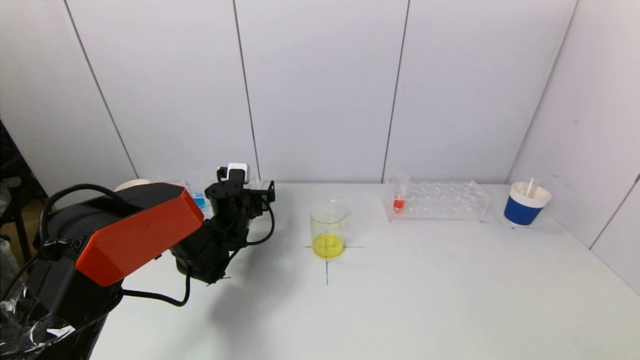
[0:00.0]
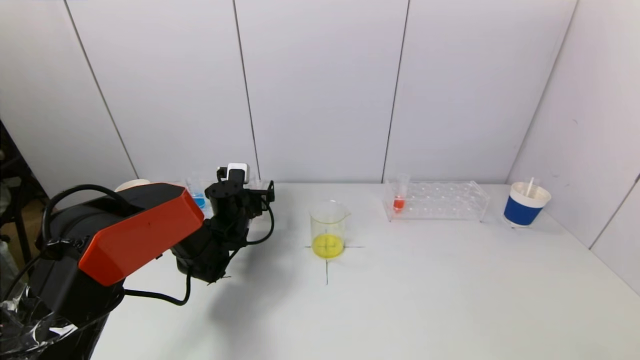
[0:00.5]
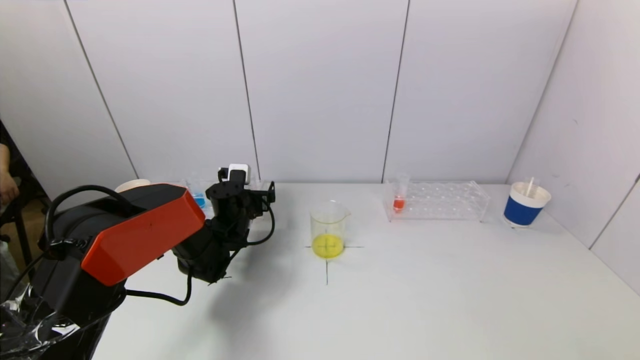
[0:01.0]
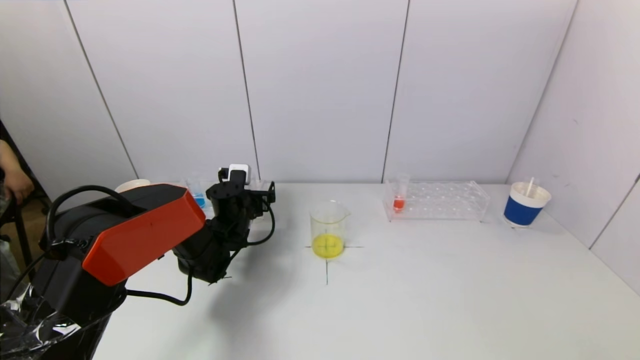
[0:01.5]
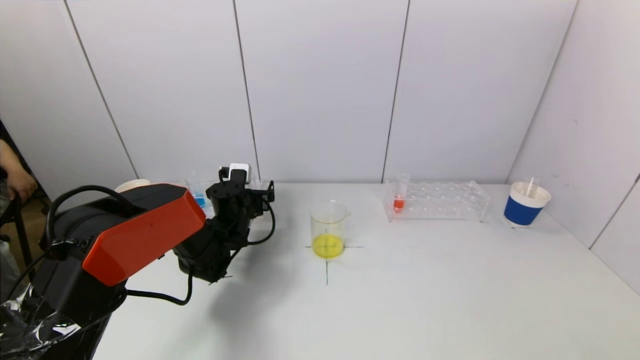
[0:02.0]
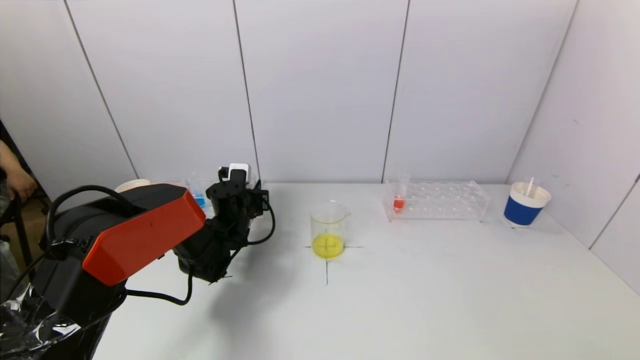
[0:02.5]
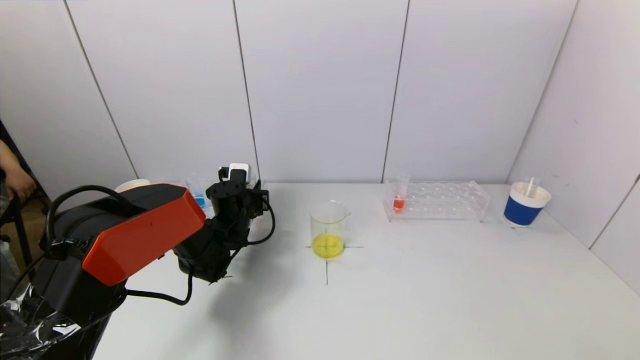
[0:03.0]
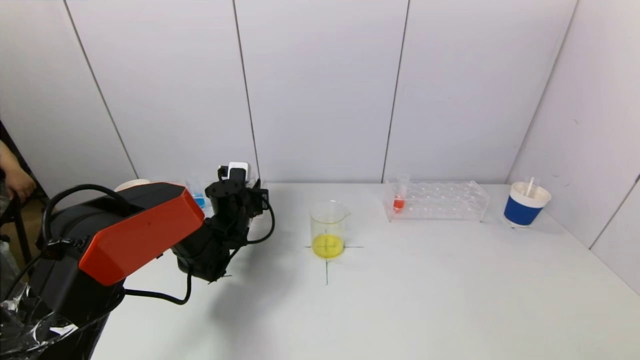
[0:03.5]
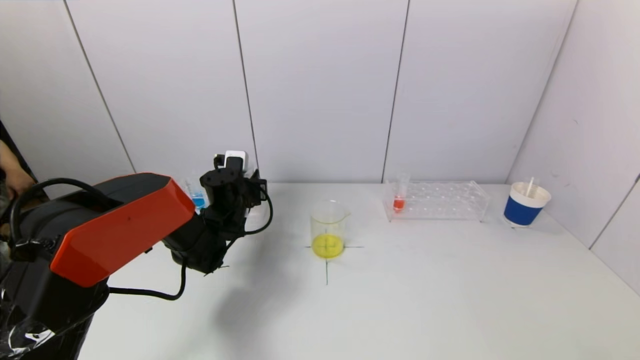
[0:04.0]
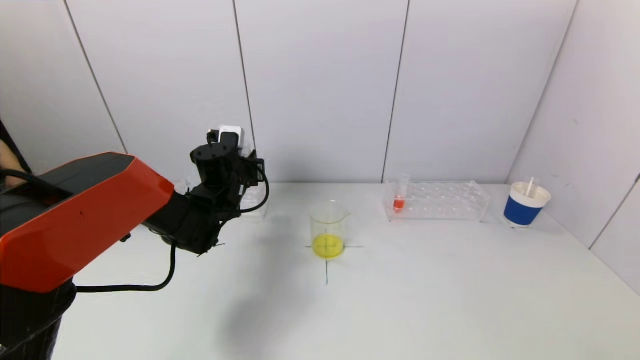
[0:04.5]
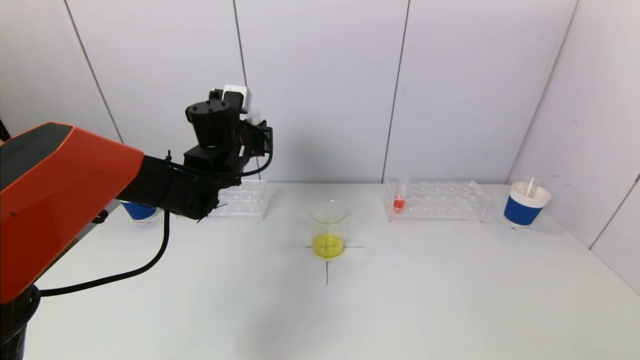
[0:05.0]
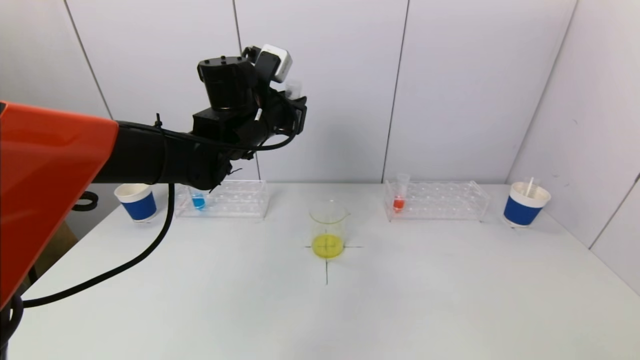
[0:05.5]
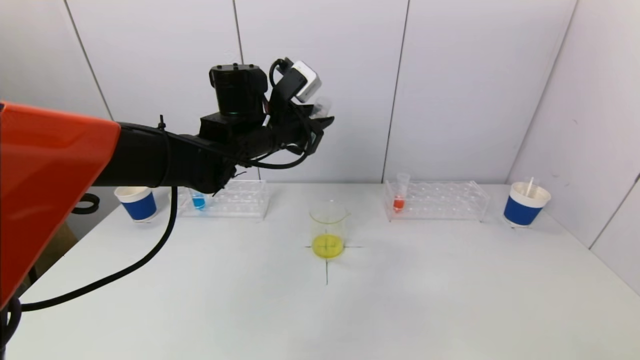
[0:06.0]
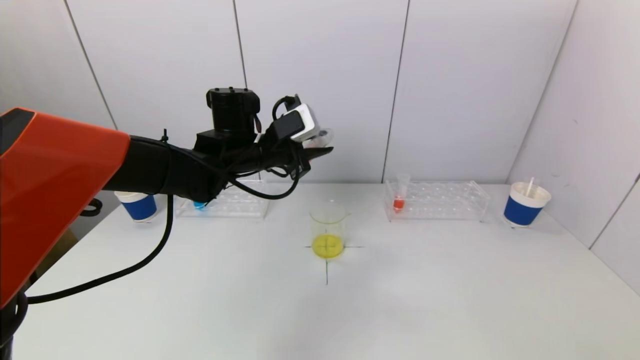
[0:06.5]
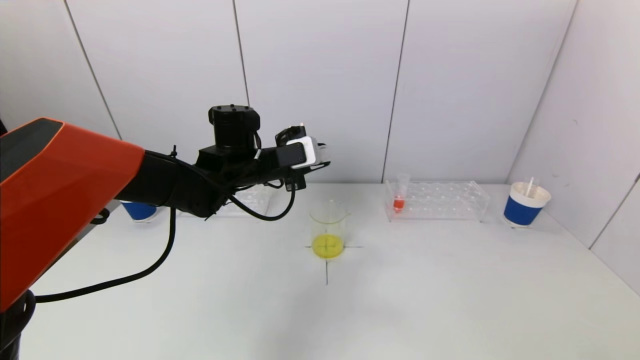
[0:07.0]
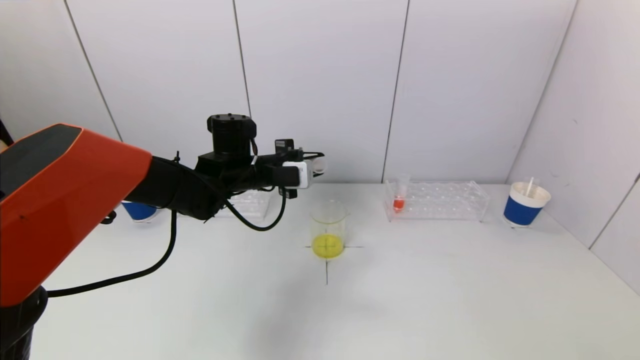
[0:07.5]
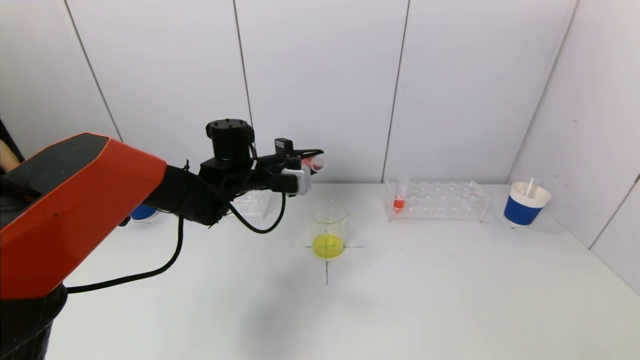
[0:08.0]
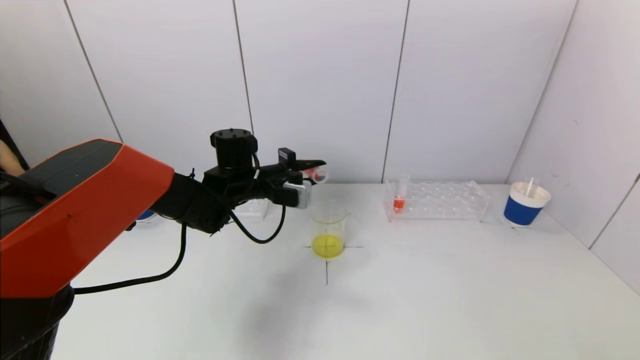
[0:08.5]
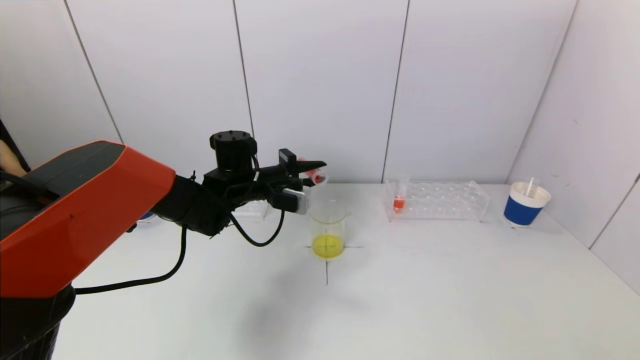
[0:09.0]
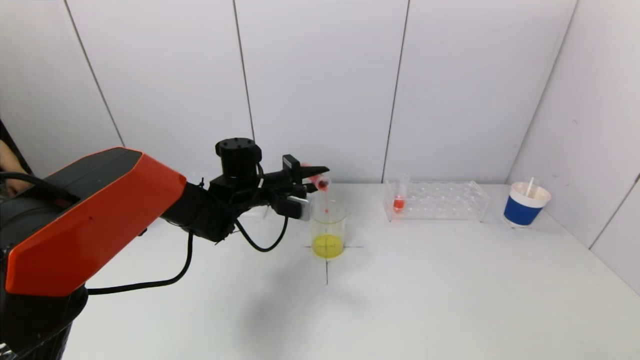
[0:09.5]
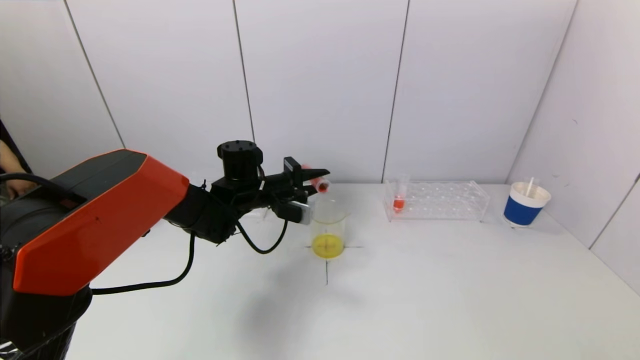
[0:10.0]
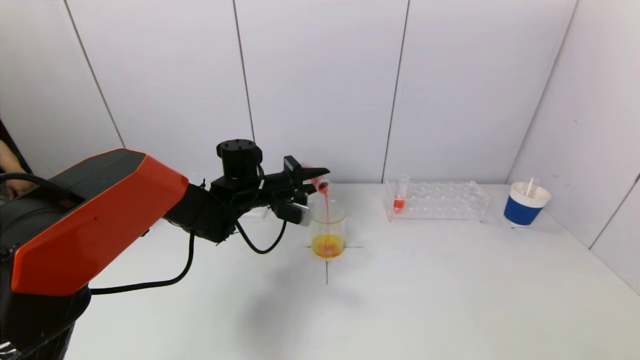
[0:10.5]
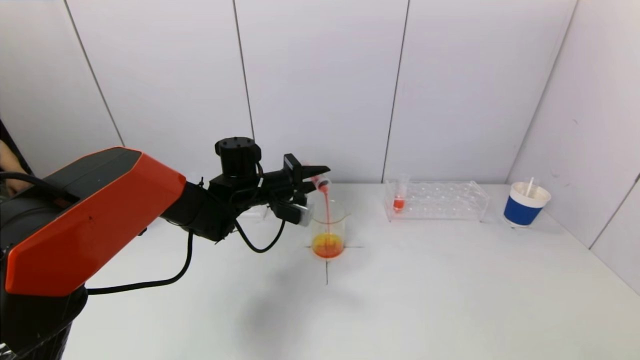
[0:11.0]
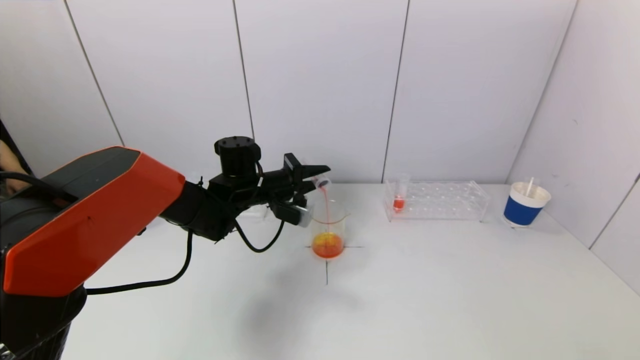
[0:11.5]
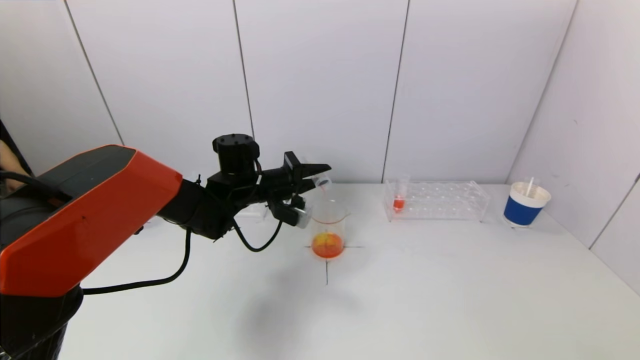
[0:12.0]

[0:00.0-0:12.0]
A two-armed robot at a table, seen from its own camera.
Task of the whole recording: pick up a test tube with pigment on left test tube rack and a test tube with pigment on right test tube rack by grippers and pour them into the beaker.
Step, 0:00.0 to 0:02.5: Grasp the red reagent with the left gripper.
0:00.0 to 0:02.0: Both grippers stay about where they are.
0:02.0 to 0:04.0: The left gripper closes.
0:04.0 to 0:06.0: The left gripper moves upward and to the right, approximately 20 cm.
0:06.0 to 0:08.0: The left gripper moves downward, approximately 10 cm.
0:08.0 to 0:10.0: The grippers stay close to where they were, moving slightly.
0:10.0 to 0:12.0: There are only small adjustments of the grippers.

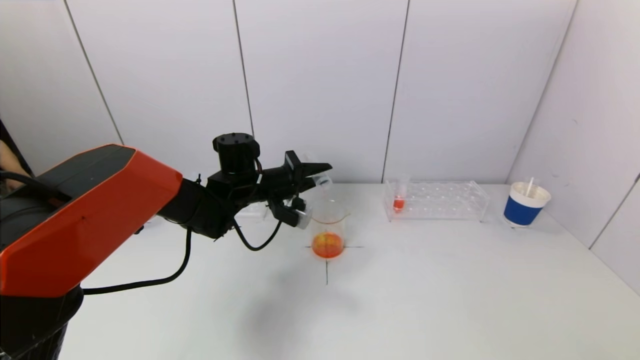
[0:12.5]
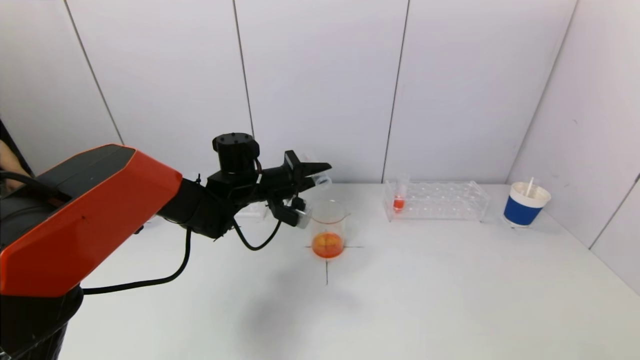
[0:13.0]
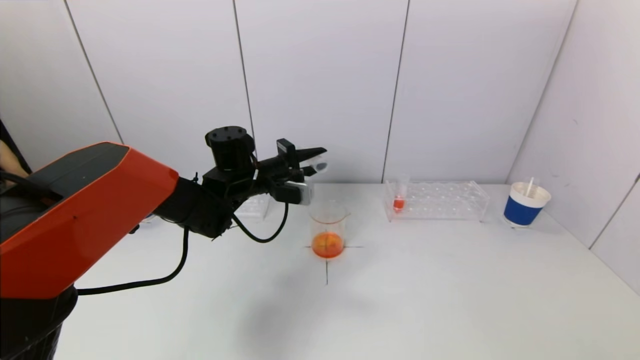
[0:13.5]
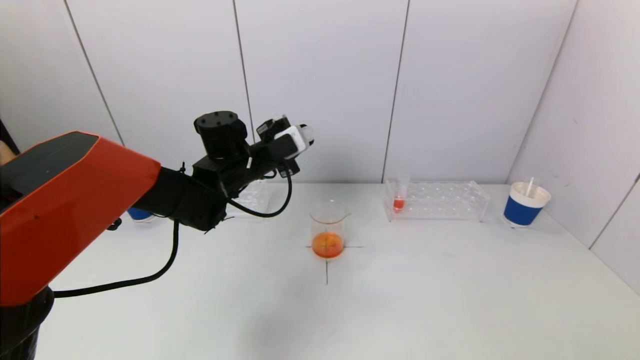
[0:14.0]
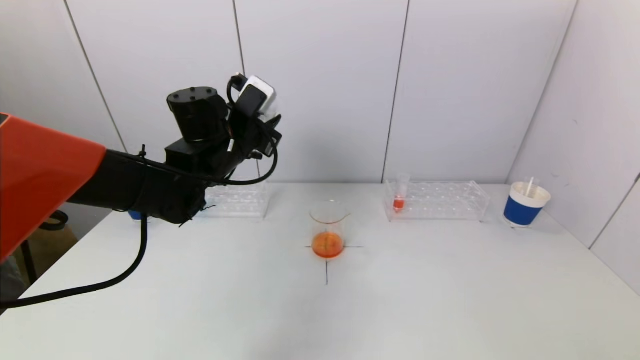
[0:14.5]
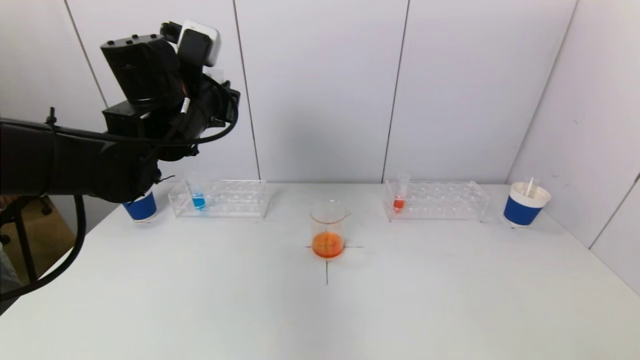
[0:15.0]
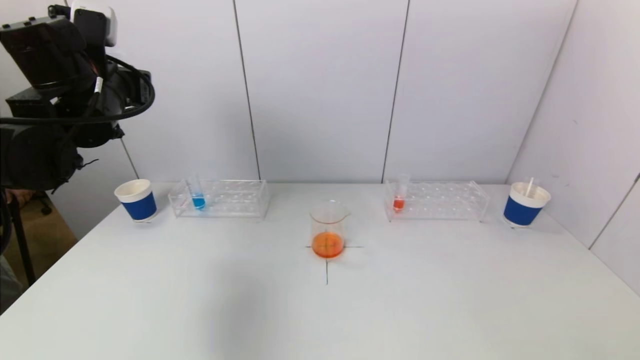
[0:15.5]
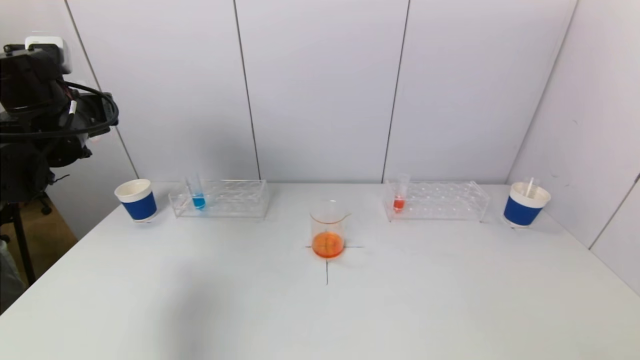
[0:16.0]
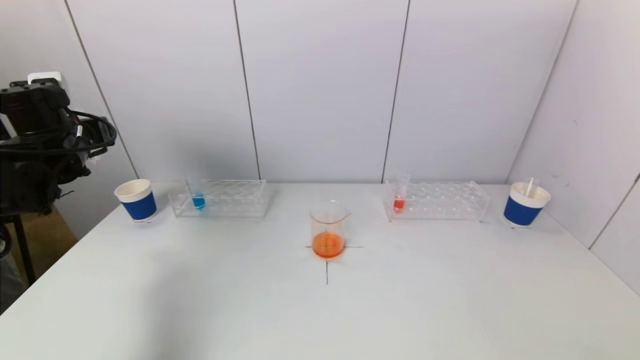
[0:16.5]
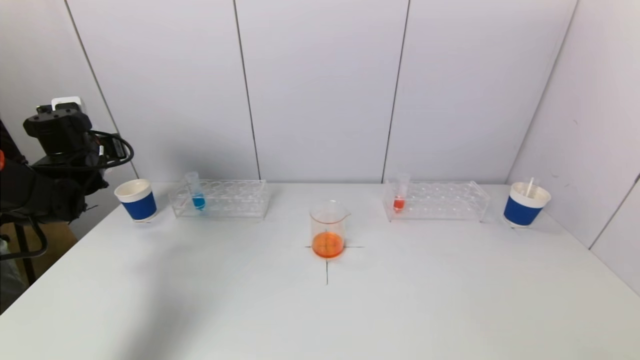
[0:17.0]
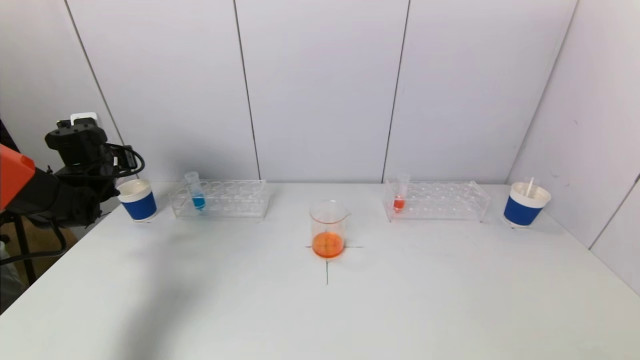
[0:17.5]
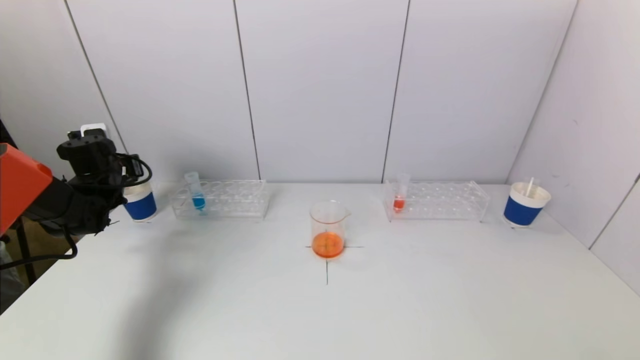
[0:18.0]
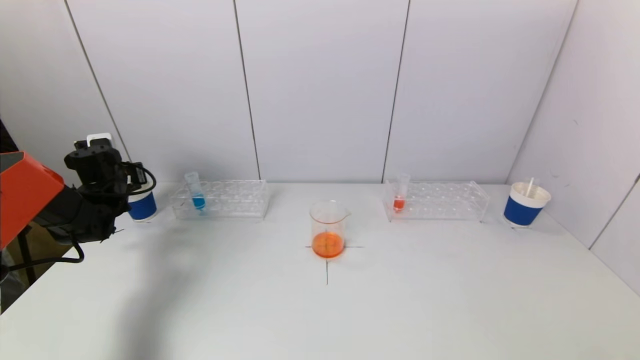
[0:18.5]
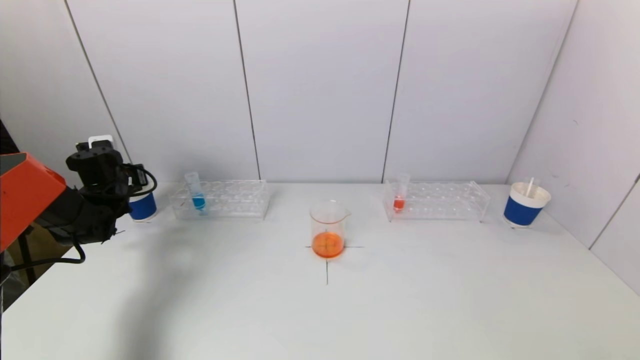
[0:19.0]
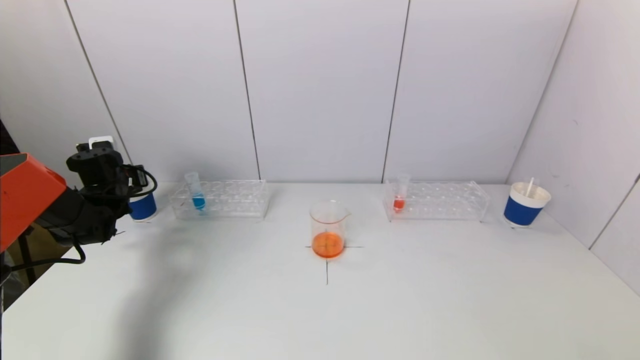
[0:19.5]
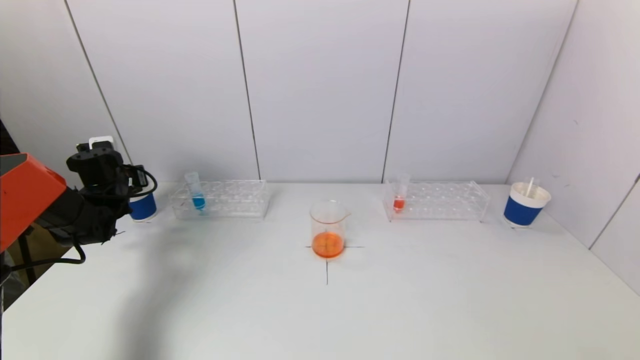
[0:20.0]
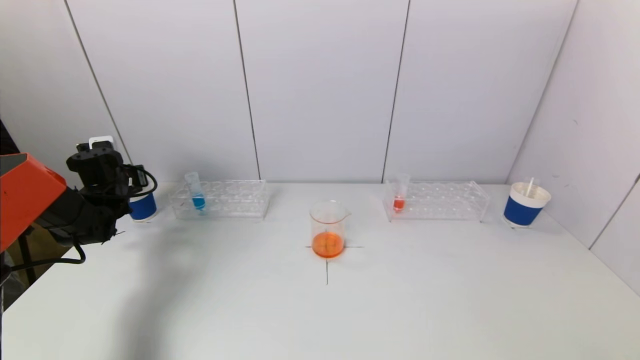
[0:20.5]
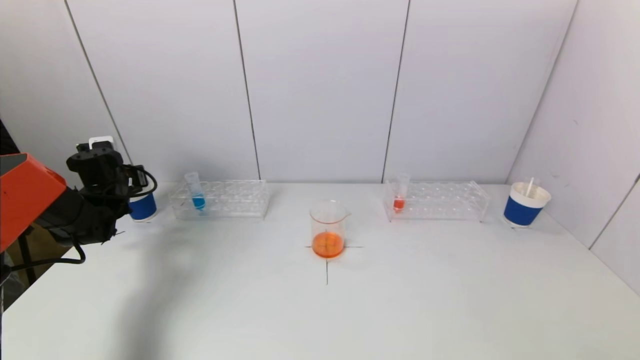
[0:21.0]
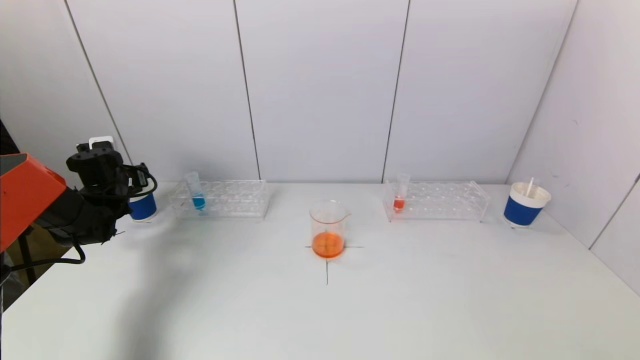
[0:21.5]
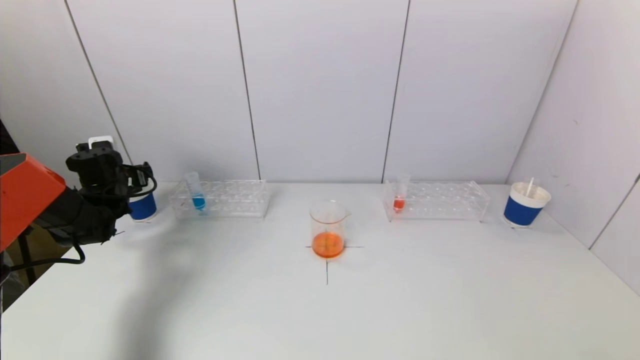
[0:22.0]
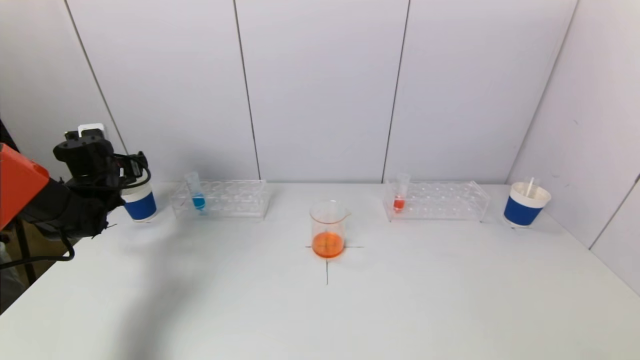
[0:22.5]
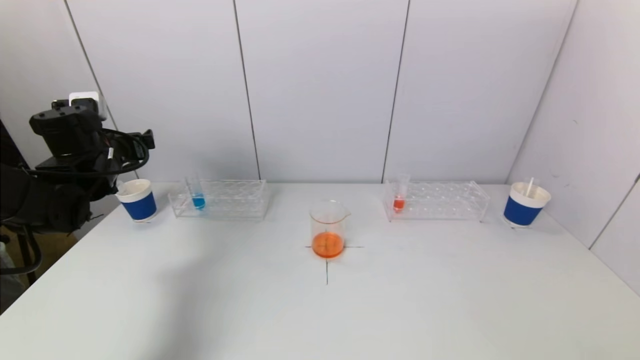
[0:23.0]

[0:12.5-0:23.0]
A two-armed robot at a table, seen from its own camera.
Task of the whole recording: pick up a test tube with pigment on left test tube rack and a test tube with pigment on right test tube rack by grippers and pour them into the beaker.
Step, 0:13.0 to 0:21.5: Place the test tube into the paper cup with the left gripper.
0:12.5 to 0:14.5: The left gripper shifts some 10 cm upward.
0:14.5 to 0:16.5: The left gripper is displaced to the left by roughly 25 cm.
0:16.5 to 0:19.0: The left gripper is displaced downward and forward by roughly 15 cm.
0:19.0 to 0:21.0: Both grippers stay put.
0:21.0 to 0:23.0: The left gripper is displaced upward, backward and to the right by some 15 cm, and opens.
